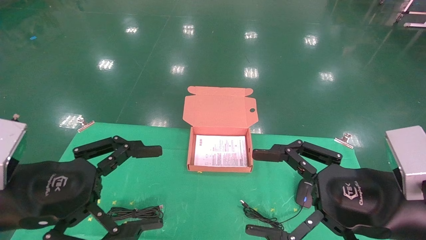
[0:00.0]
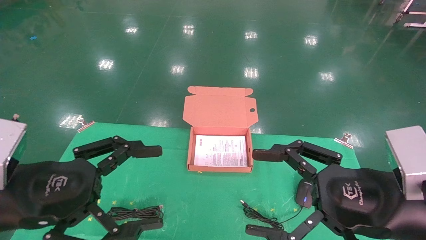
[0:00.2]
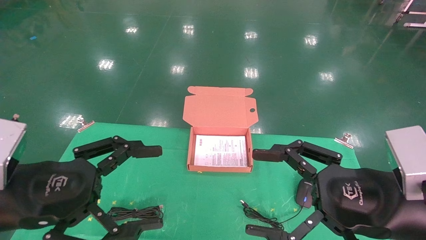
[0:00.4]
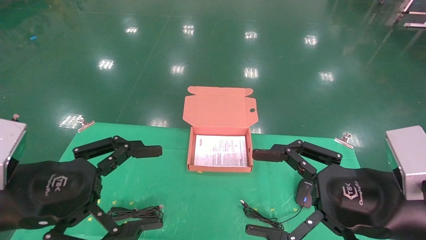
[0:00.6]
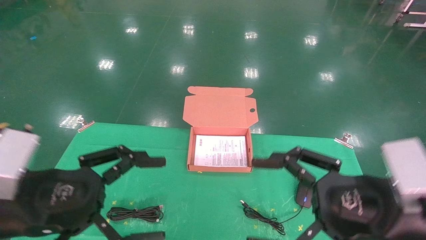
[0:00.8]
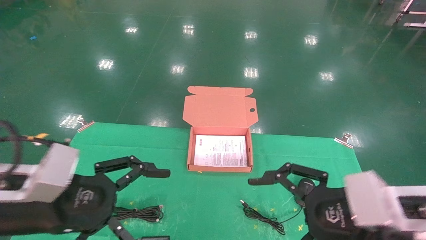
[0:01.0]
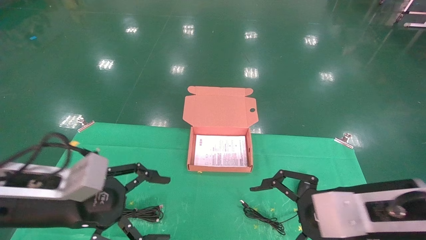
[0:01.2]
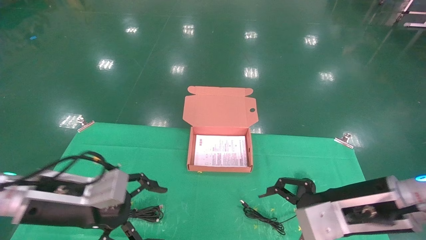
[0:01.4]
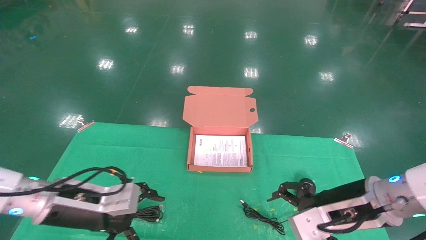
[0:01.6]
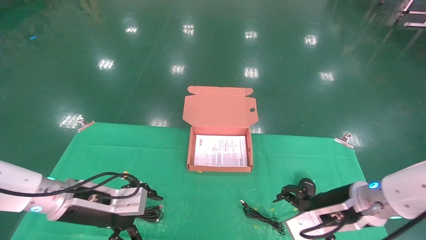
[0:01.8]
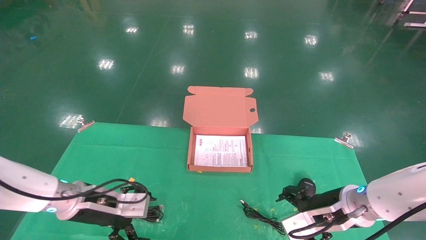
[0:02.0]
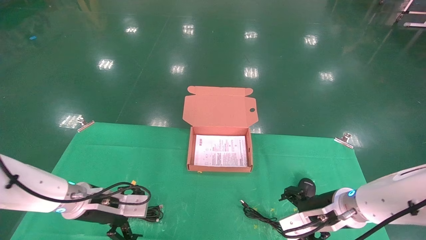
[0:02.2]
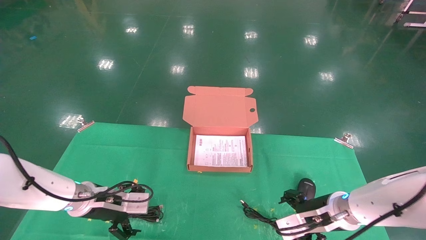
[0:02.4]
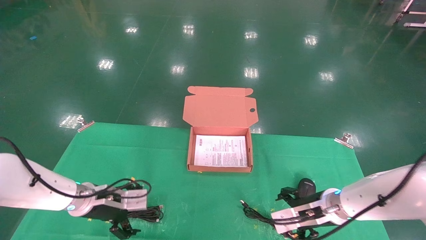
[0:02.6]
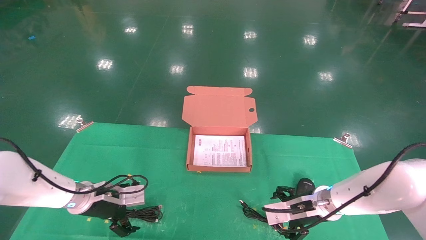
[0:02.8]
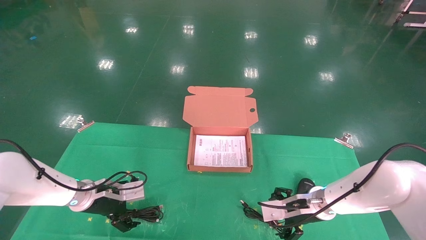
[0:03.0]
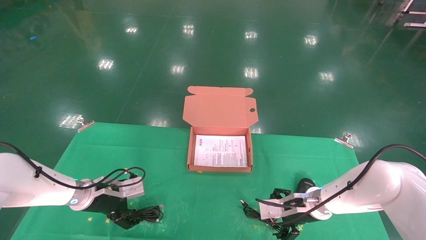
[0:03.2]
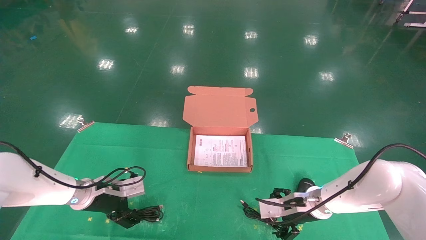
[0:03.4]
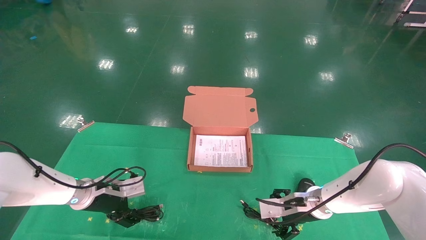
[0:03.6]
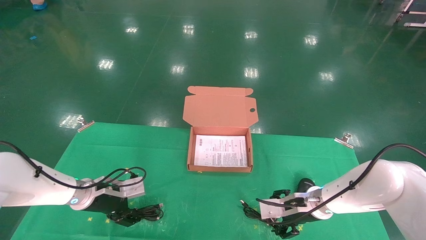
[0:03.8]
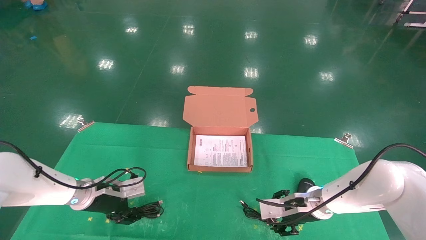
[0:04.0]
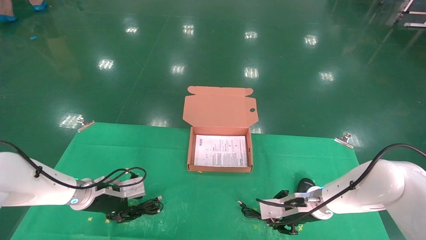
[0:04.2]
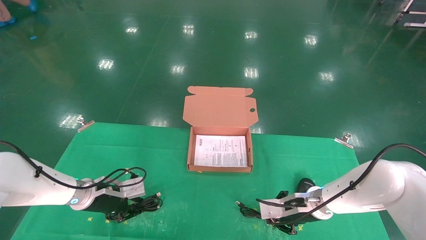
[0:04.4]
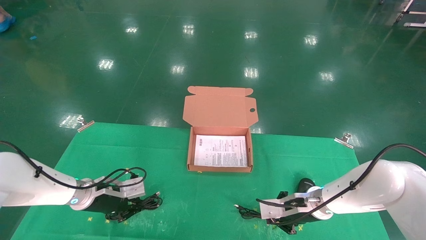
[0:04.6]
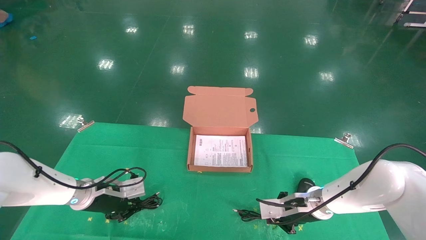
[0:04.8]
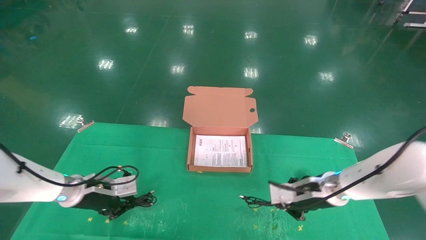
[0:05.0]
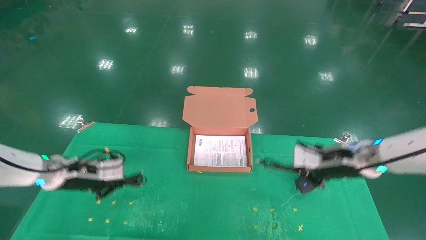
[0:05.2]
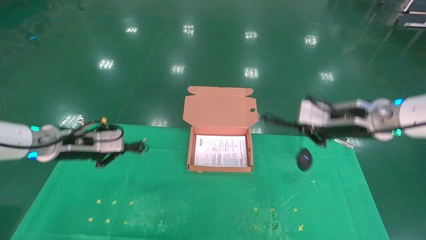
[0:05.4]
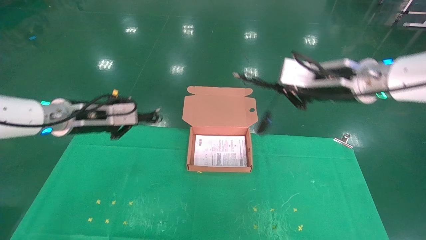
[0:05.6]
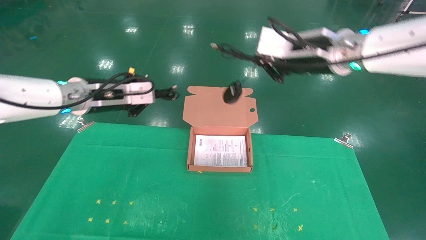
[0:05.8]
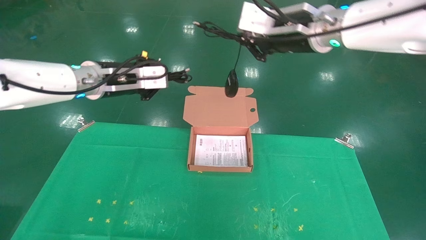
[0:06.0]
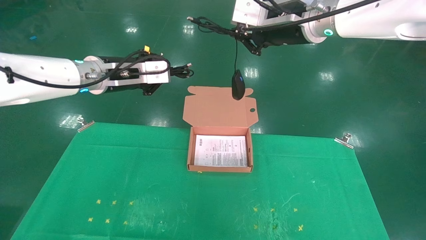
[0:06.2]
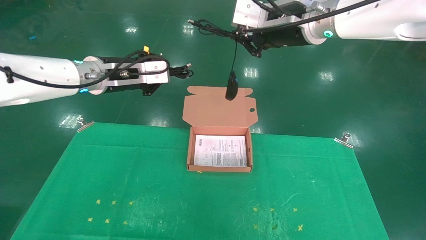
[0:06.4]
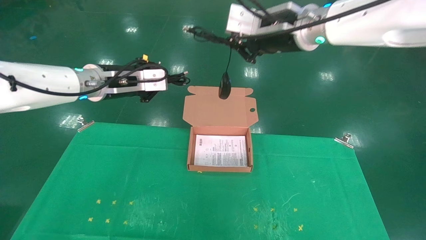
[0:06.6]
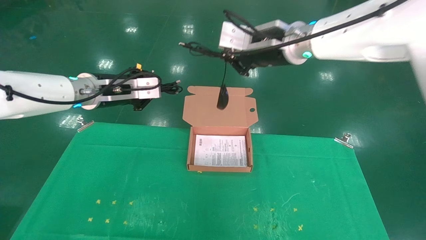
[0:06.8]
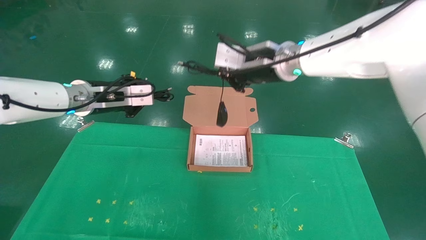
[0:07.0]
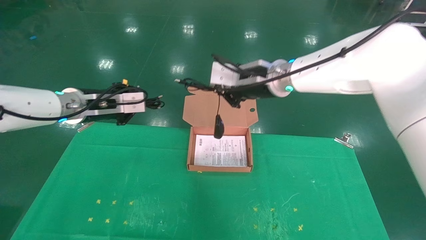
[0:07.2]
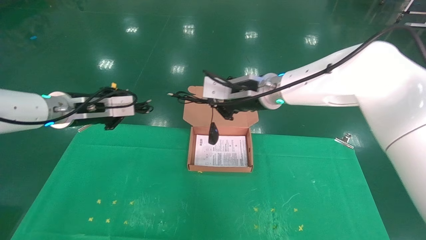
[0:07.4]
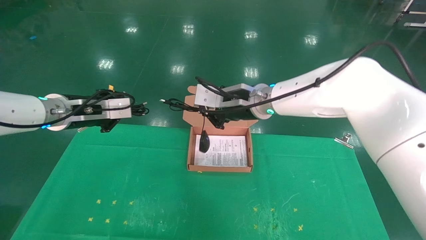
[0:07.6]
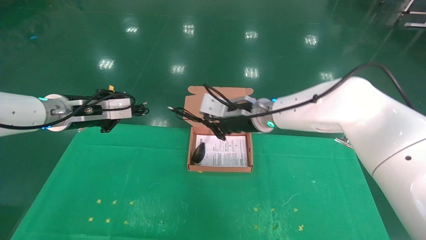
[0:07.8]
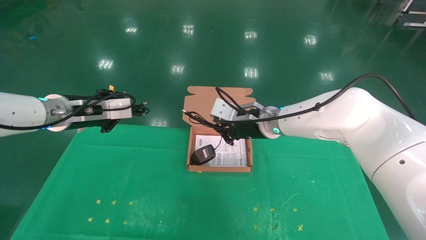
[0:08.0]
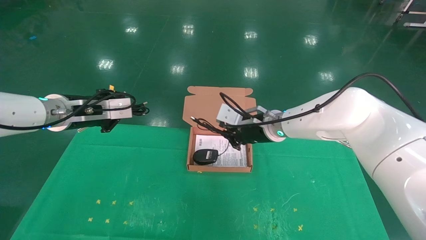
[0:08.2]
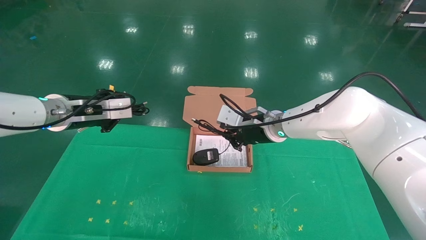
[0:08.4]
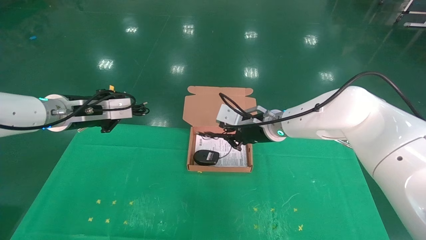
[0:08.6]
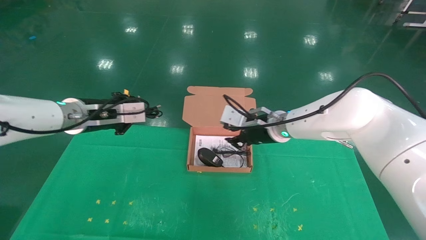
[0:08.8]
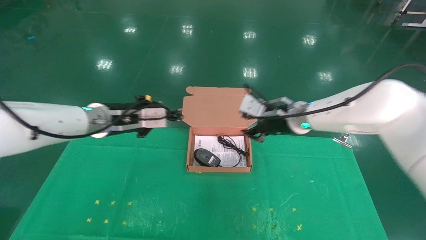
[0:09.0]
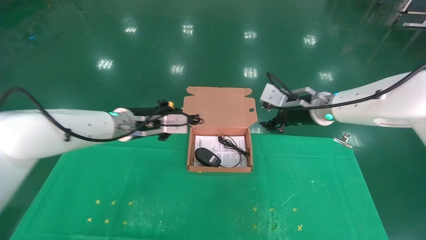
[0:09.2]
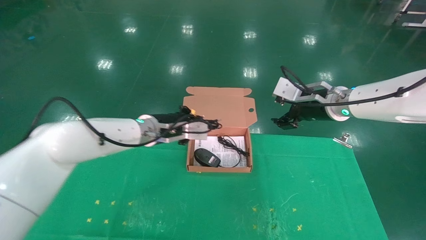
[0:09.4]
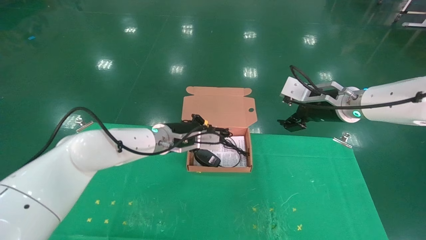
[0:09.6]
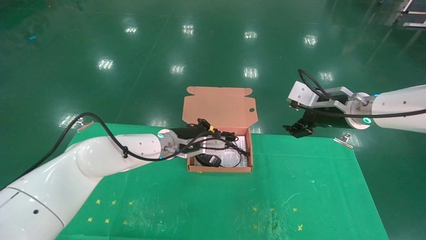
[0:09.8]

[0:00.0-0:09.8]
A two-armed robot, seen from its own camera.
Task of the whole recording: grasp data cable left put into box grasp mouse right put into box.
Step, 0:00.8 to 0:05.2: Grab and pick up both the mouse and power cord from the accessory packaging area at the same time.
0:00.0 to 0:01.4: Both grippers travel together forward and downward, approximately 10 cm.
0:01.4 to 0:02.8: The two grippers go some 15 cm forward and downward.
0:02.8 to 0:04.2: The right gripper closes, while the left gripper closes up.
0:04.2 to 0:05.6: The grippers both shift upward by approximately 25 cm. The left gripper closes up, while the right gripper closes its fingers.
0:05.6 to 0:07.0: The right gripper travels to the left by about 10 cm.
0:07.0 to 0:08.4: The right gripper moves downward, some 15 cm.
0:08.4 to 0:09.8: The right gripper heads to the right, covering some 15 cm, and opens. Meanwhile the left gripper heads to the right and downward, covering about 25 cm.

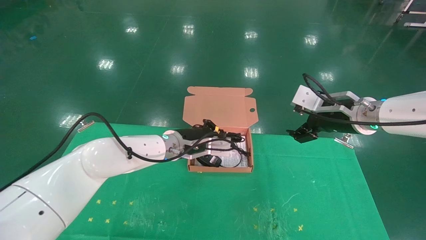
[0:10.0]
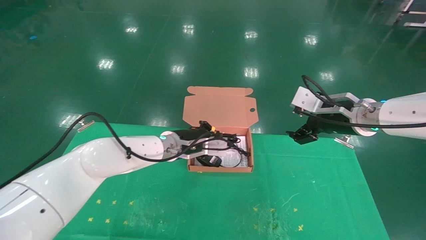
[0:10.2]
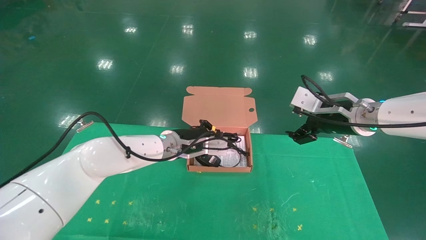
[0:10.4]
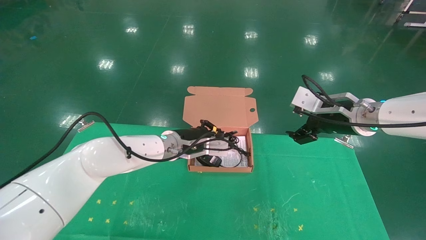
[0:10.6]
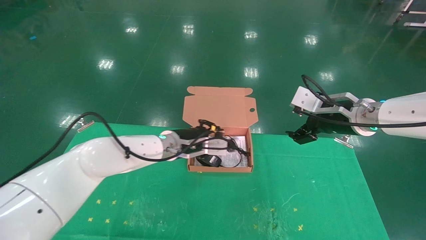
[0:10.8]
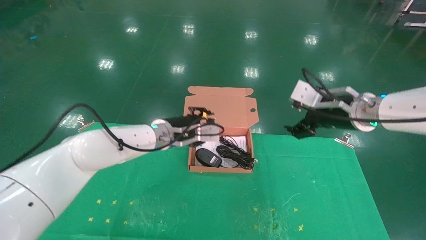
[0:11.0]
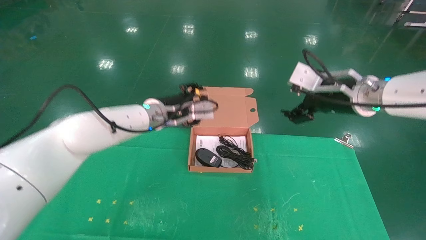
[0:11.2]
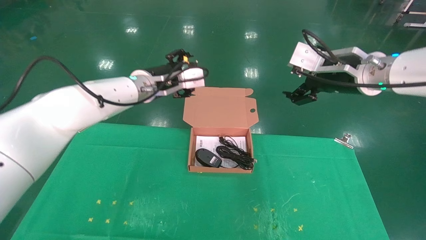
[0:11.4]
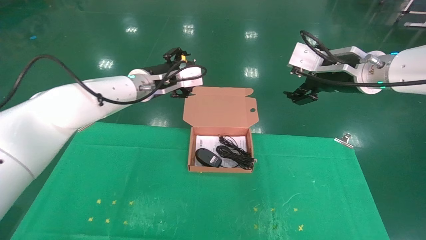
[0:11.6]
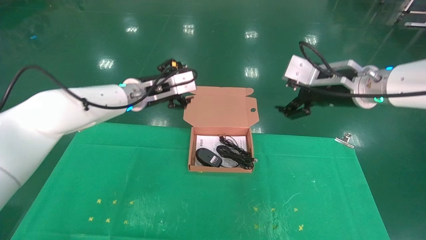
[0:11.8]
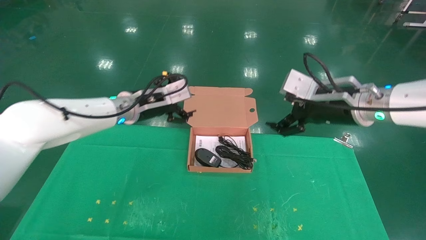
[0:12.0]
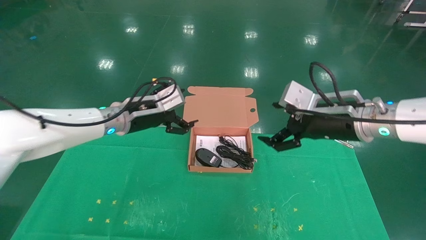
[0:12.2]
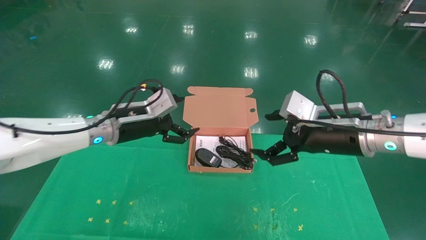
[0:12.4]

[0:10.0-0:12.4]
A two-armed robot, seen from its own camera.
Task of the whole recording: grasp data cable left put into box grasp mouse right put into box.
0:10.0 to 0:11.2: The left gripper shifts approximately 10 cm upward, and opens its fingers. Meanwhile the right gripper heads upward, covering about 5 cm.
0:11.2 to 0:12.4: The left gripper shifts approximately 10 cm to the left and backward, and opens its fingers. The right gripper travels downward and backward by about 10 cm.
